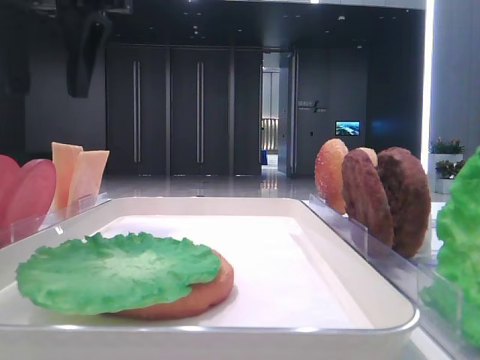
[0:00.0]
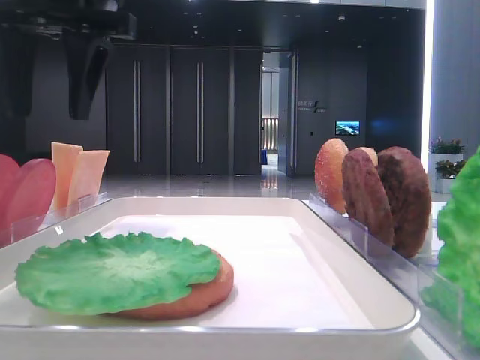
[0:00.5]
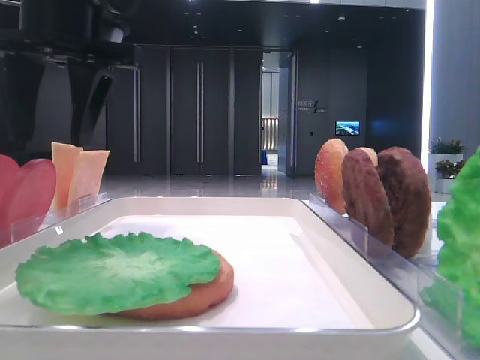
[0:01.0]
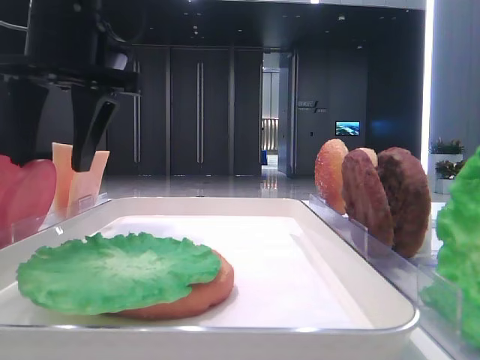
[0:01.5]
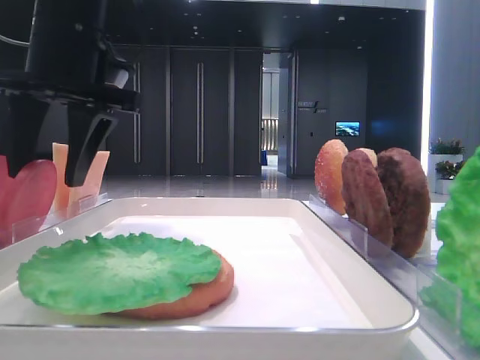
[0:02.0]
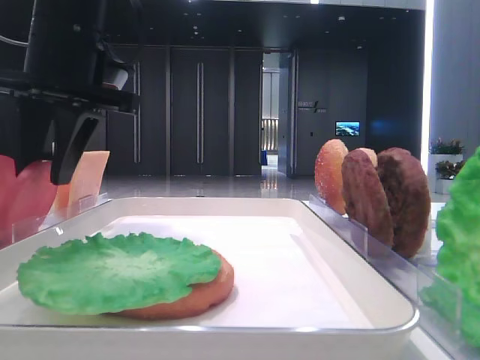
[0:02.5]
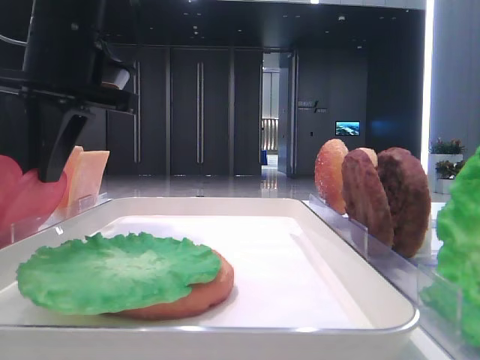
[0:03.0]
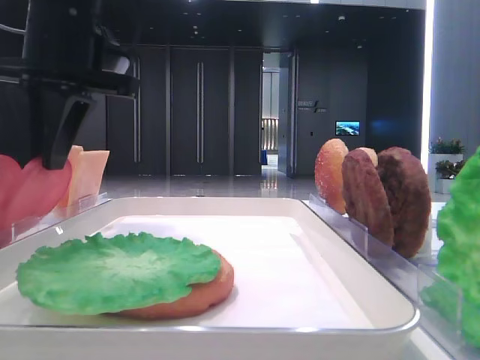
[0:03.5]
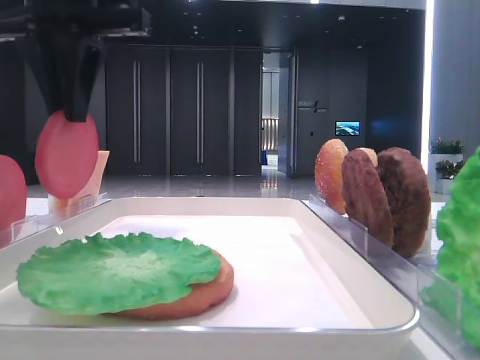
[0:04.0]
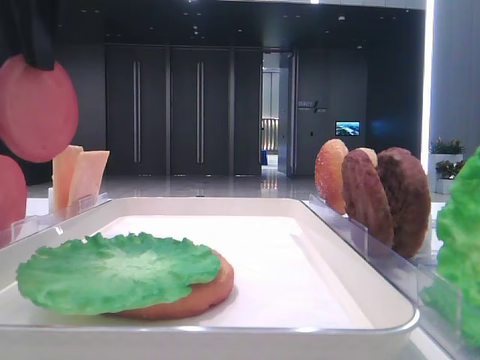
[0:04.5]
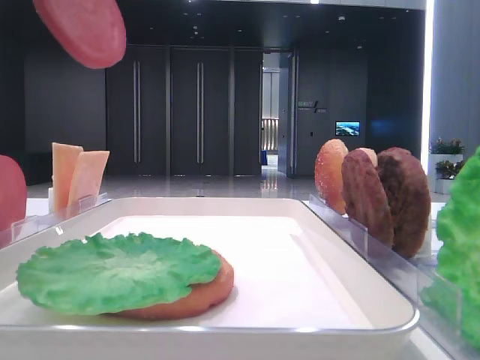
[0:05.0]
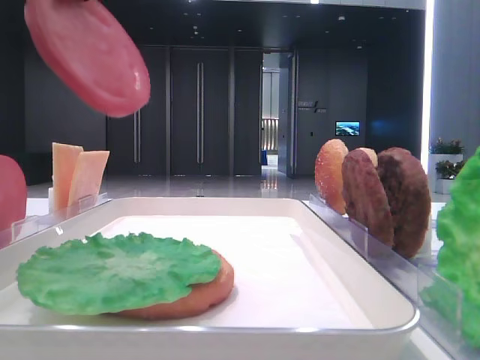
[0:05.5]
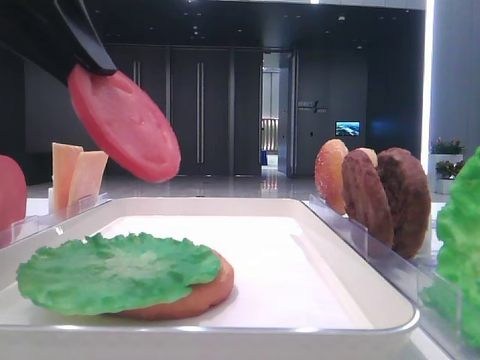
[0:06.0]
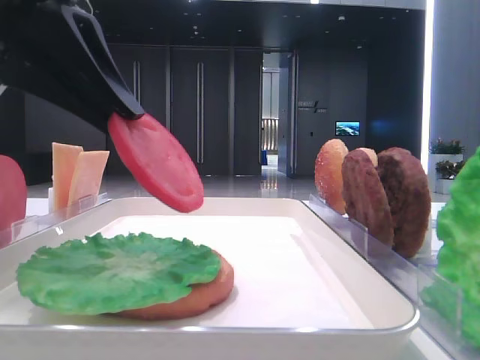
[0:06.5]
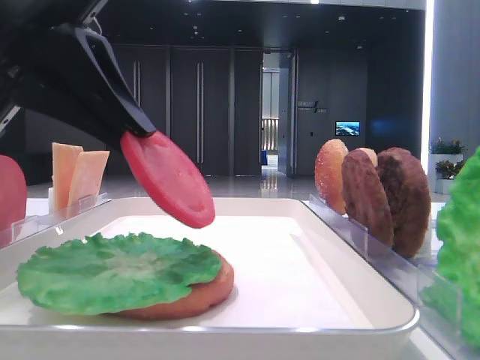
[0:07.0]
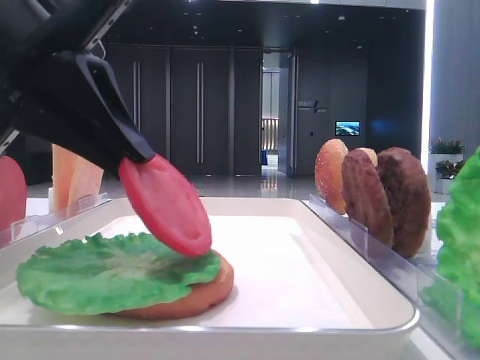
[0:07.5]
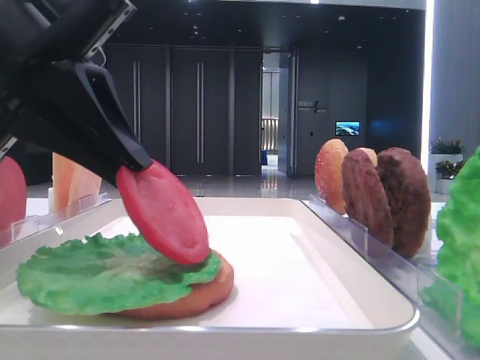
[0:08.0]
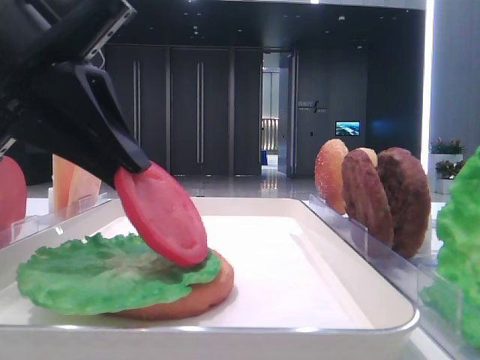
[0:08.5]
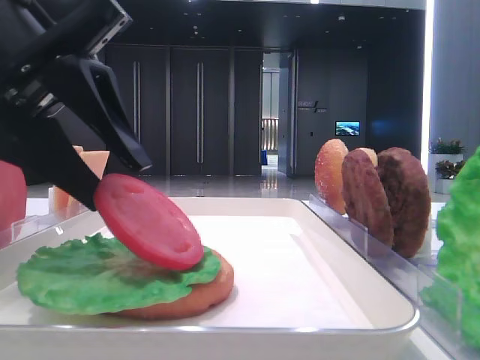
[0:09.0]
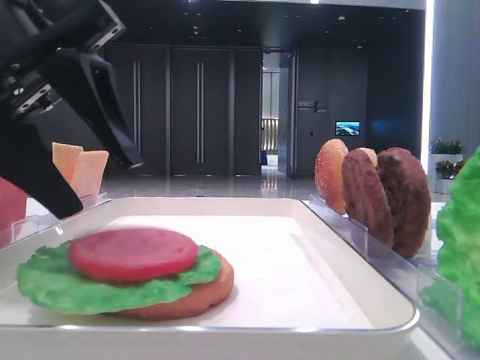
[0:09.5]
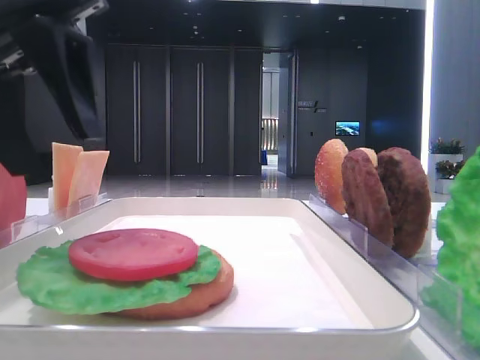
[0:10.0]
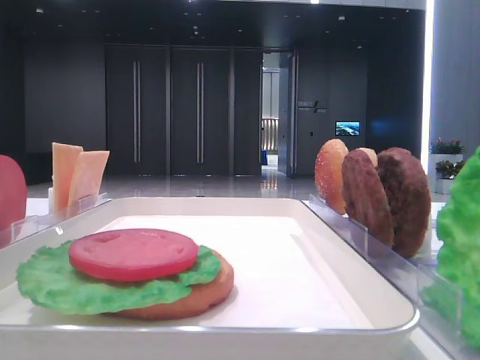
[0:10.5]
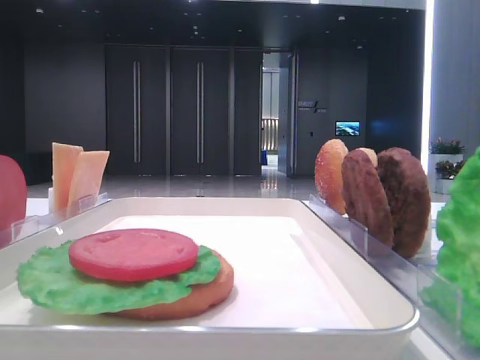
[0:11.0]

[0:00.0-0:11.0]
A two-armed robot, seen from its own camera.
Step, 0:00.0 to 0:02.5: Pick up the tomato slice with the left hand.
Step, 0:03.5 to 0:09.0: Place the tomato slice on the lettuce leaf with the left hand.
0:00.0 to 0:02.0: The left gripper travels downward by some 10 cm.
0:02.0 to 0:03.5: The left gripper closes up.
0:03.5 to 0:05.5: The left gripper shifts approximately 15 cm backward and upward.
0:05.5 to 0:07.5: The left gripper shifts roughly 10 cm downward.
0:07.5 to 0:09.0: The left gripper opens its fingers.
0:09.0 to 0:11.0: The left gripper shifts roughly 15 cm upward and to the left.

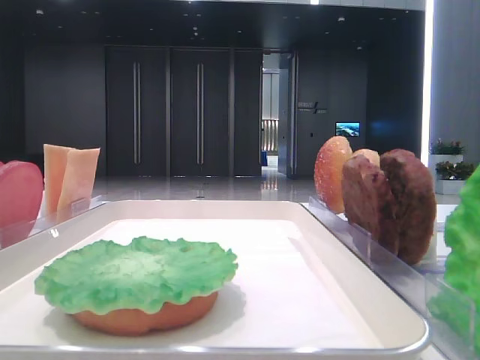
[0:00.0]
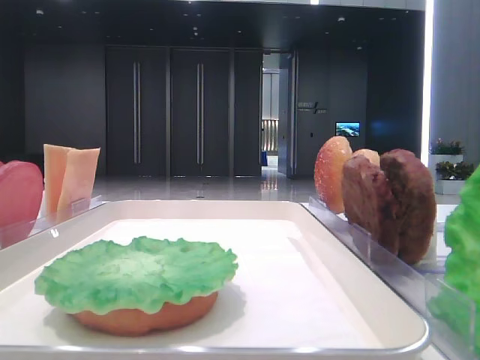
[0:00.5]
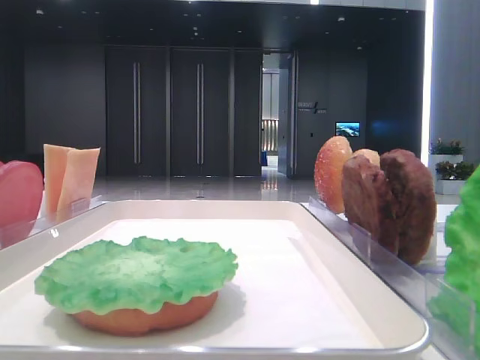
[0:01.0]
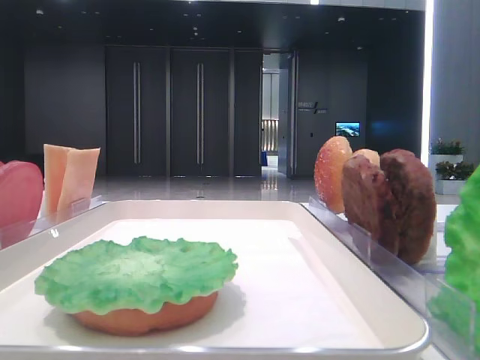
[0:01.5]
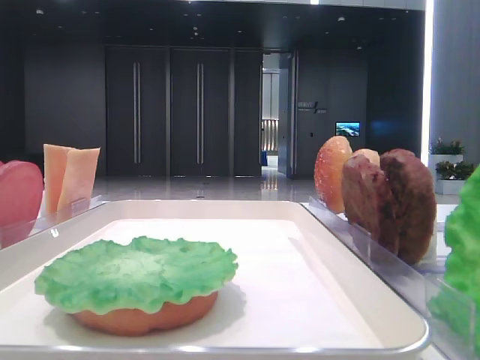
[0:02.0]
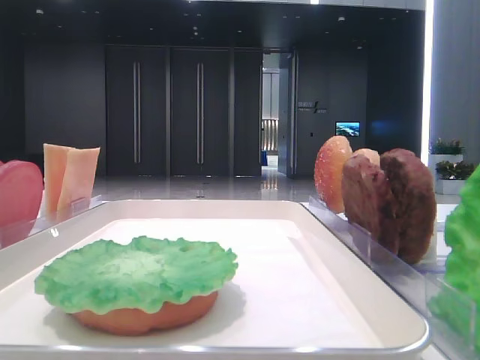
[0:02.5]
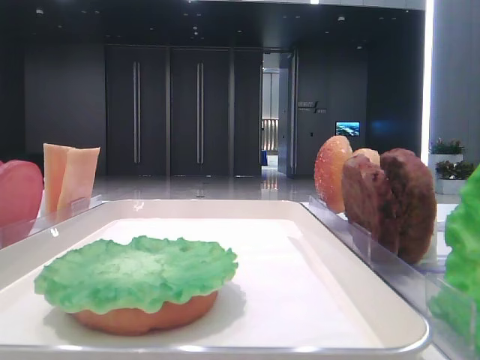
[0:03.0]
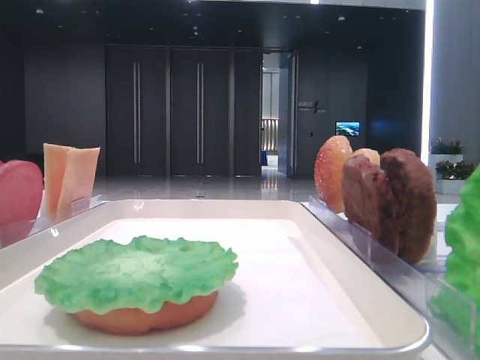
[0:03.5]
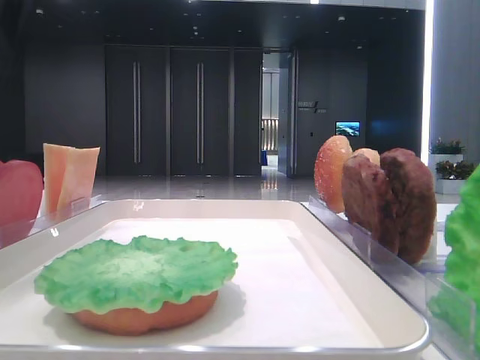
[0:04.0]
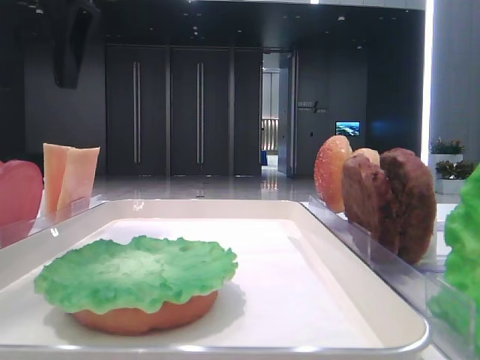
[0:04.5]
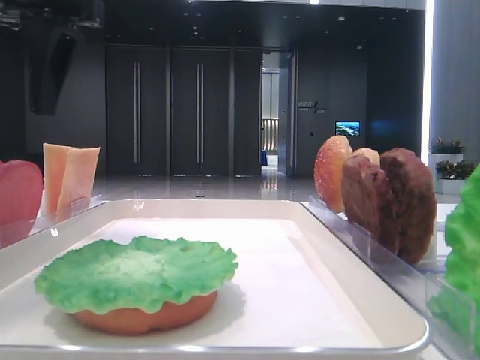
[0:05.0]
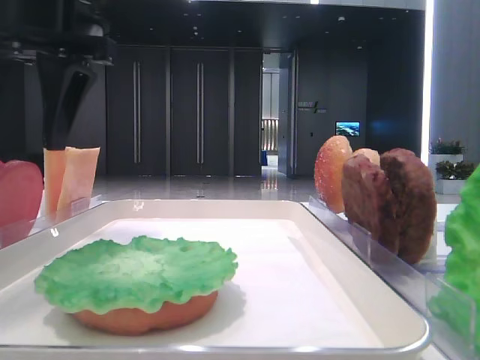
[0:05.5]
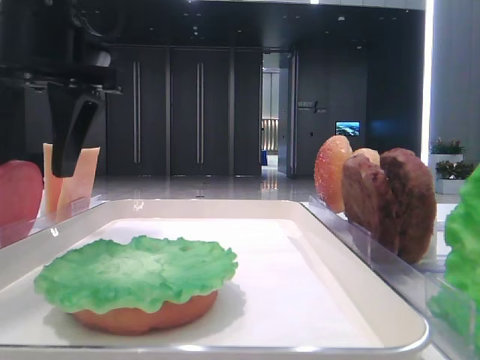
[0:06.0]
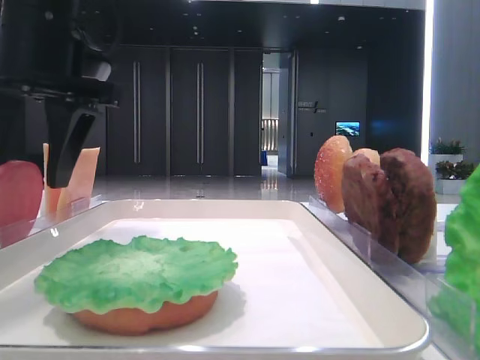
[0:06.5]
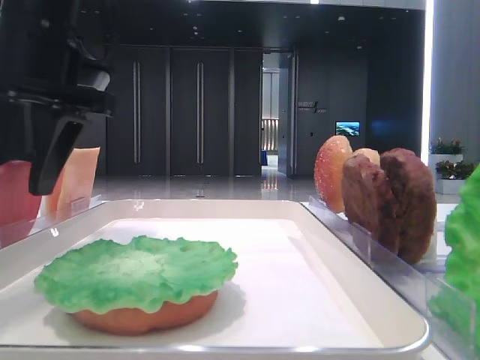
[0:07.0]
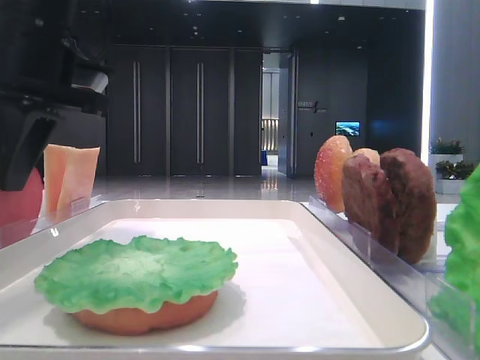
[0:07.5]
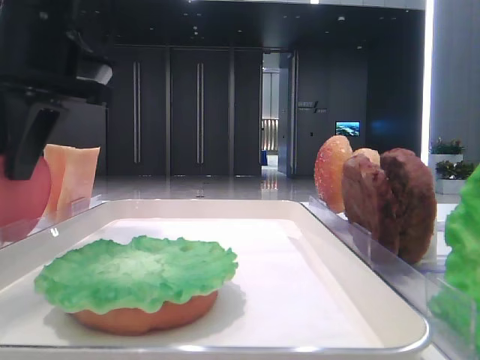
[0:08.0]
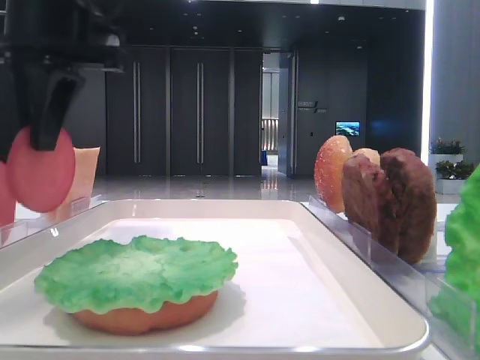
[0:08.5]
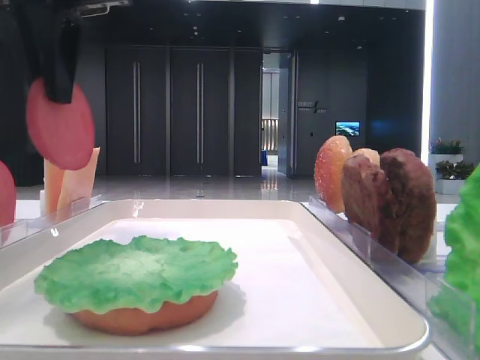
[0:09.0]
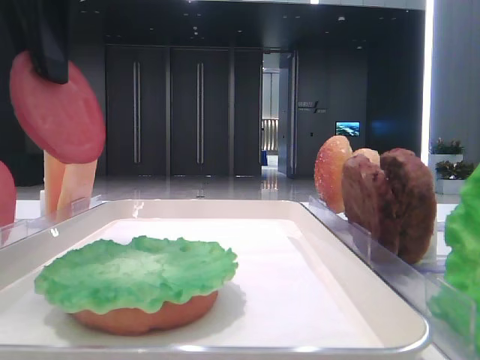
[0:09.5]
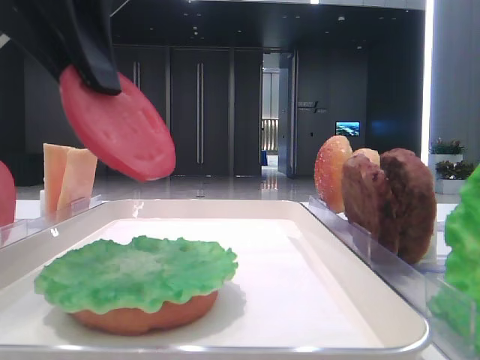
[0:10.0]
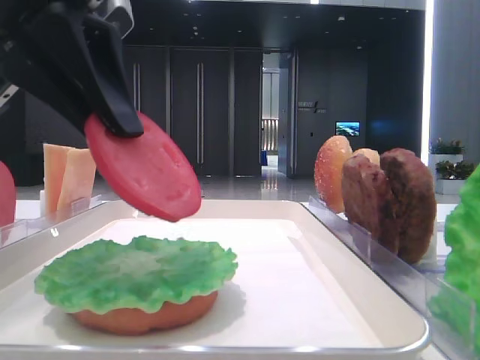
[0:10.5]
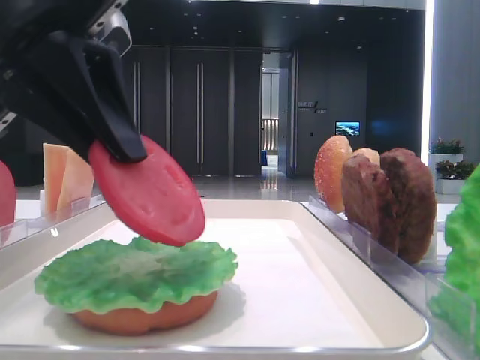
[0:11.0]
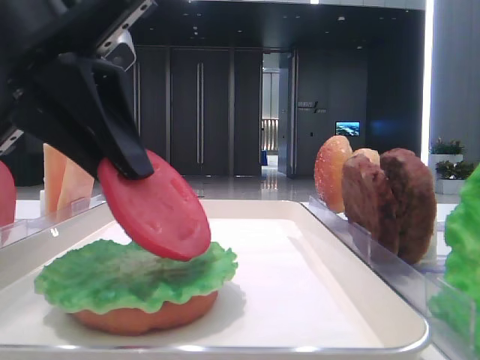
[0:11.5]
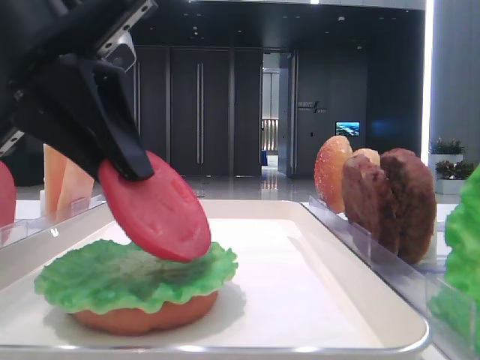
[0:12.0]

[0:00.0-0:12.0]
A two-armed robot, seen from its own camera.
Step, 0:00.0 to 0:07.5: Pick up the tomato slice with the left hand.
0:02.0 to 0:04.0: The left gripper travels forward by approximately 25 cm.
0:04.0 to 0:06.0: The left gripper travels downward and to the right by approximately 10 cm.
0:06.0 to 0:08.0: The left gripper closes up.
0:08.0 to 0:10.0: The left gripper is displaced backward by some 10 cm.
0:10.0 to 0:12.0: The left gripper shifts roughly 5 cm downward.

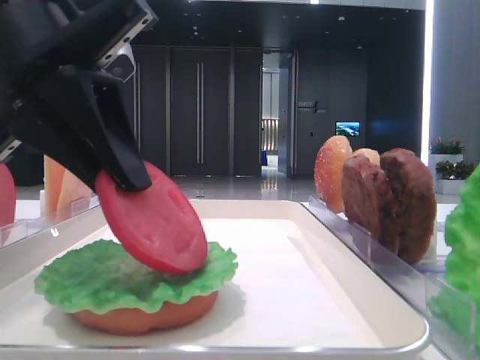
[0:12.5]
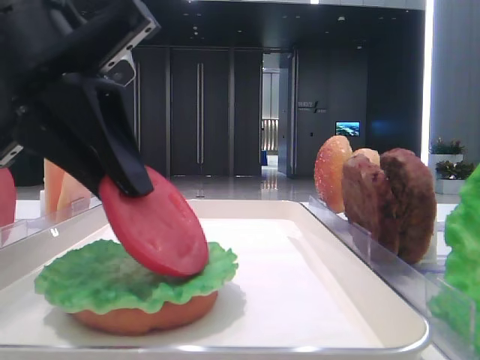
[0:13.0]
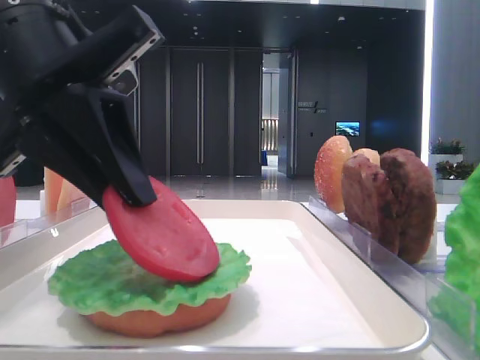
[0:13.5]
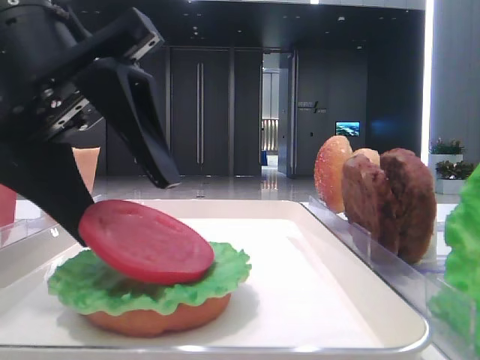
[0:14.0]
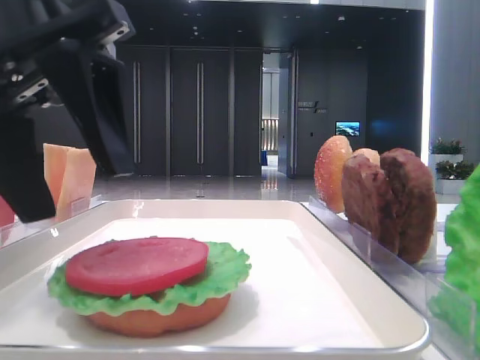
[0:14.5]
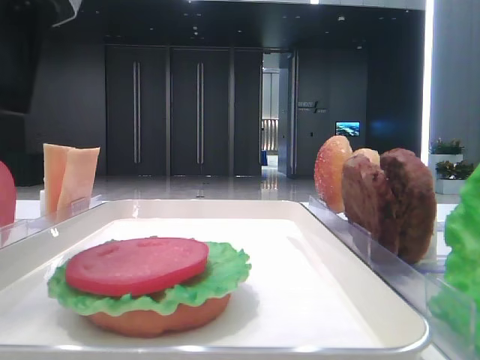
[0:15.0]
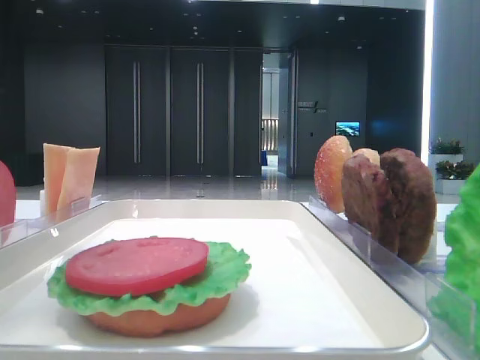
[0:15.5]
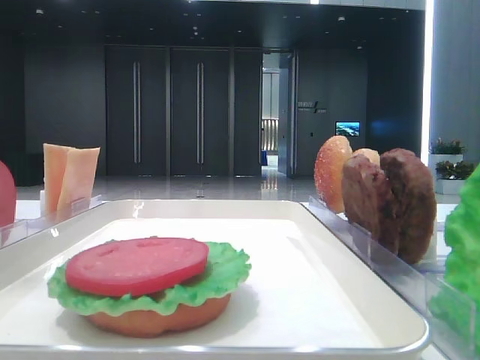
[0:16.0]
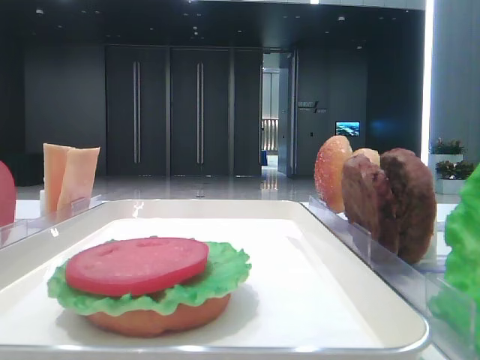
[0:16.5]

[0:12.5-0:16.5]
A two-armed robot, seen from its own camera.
0:12.5 to 0:14.5: The left gripper opens its fingers.
0:14.5 to 0:16.5: The left gripper is displaced to the left and upward by roughly 20 cm.
